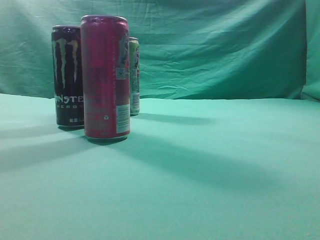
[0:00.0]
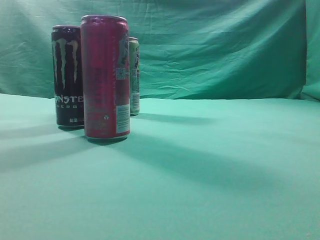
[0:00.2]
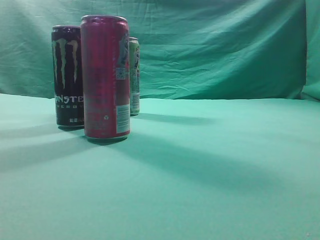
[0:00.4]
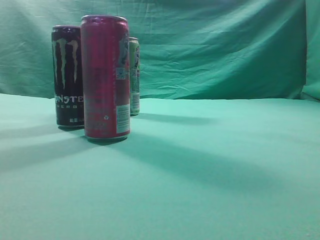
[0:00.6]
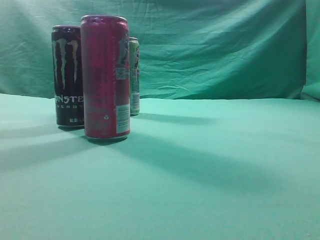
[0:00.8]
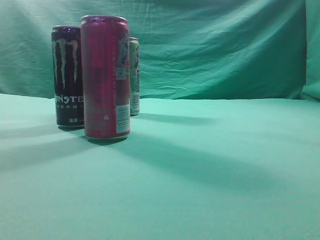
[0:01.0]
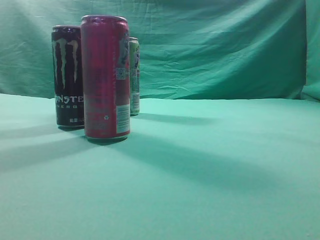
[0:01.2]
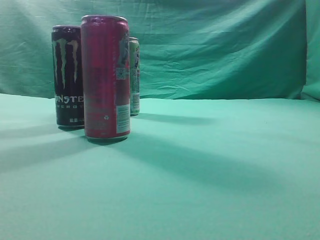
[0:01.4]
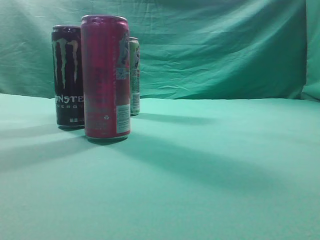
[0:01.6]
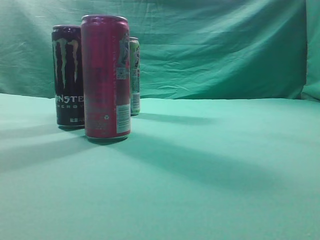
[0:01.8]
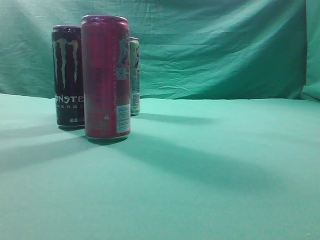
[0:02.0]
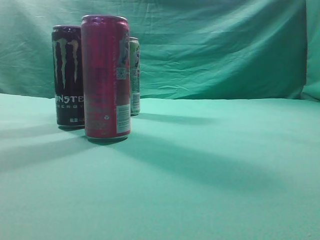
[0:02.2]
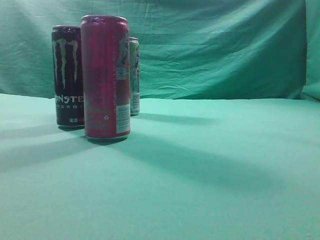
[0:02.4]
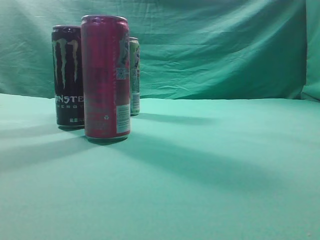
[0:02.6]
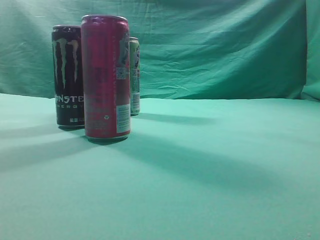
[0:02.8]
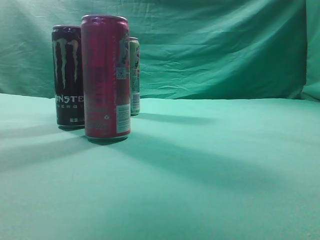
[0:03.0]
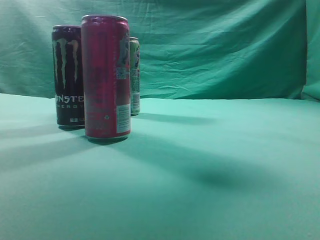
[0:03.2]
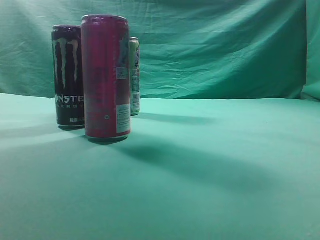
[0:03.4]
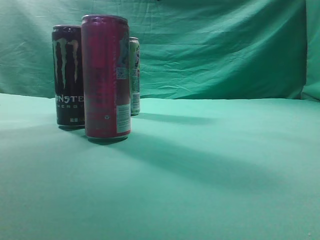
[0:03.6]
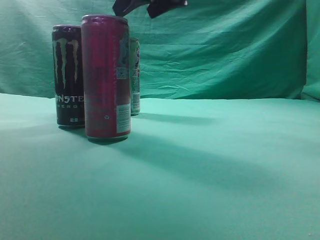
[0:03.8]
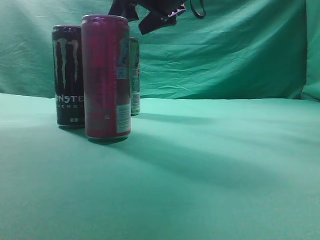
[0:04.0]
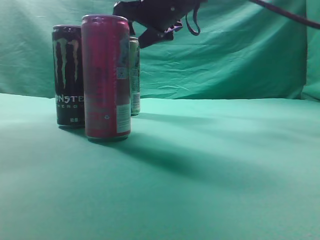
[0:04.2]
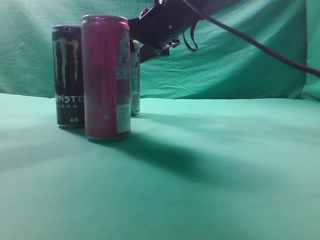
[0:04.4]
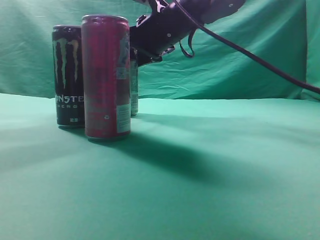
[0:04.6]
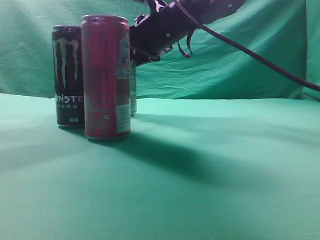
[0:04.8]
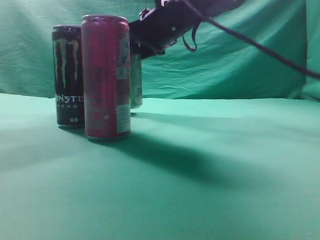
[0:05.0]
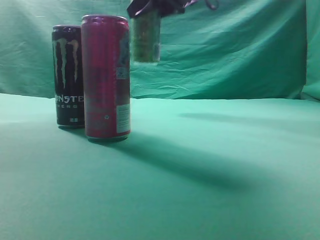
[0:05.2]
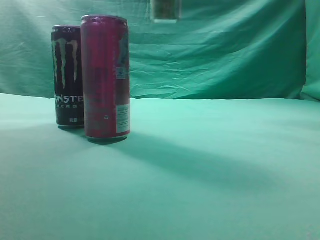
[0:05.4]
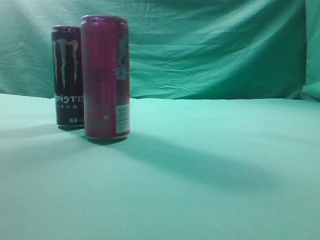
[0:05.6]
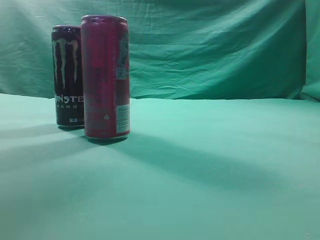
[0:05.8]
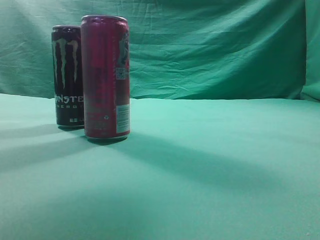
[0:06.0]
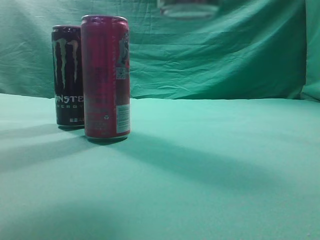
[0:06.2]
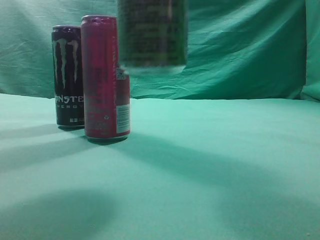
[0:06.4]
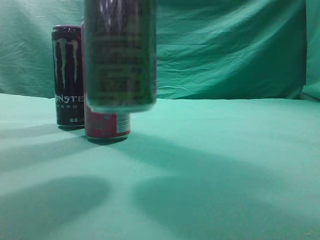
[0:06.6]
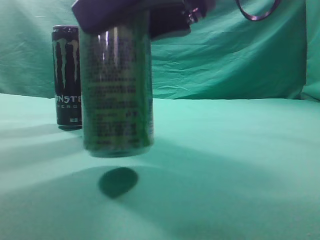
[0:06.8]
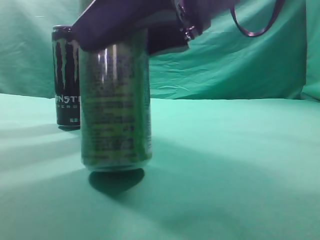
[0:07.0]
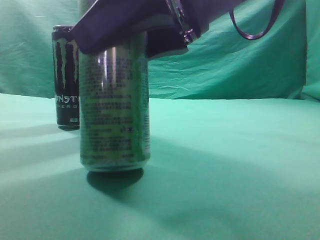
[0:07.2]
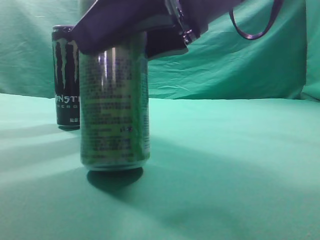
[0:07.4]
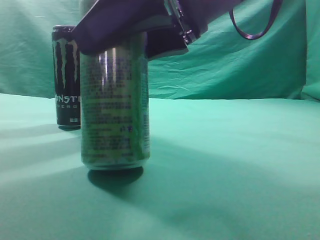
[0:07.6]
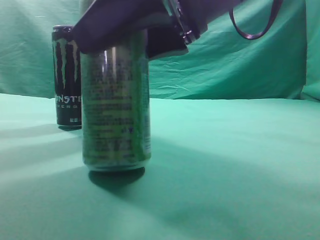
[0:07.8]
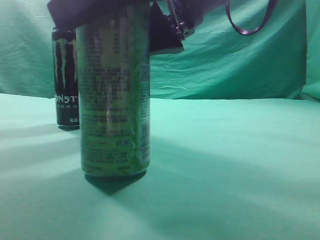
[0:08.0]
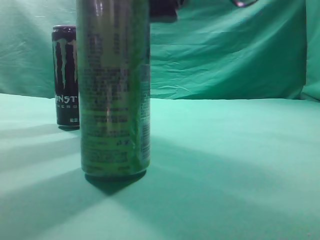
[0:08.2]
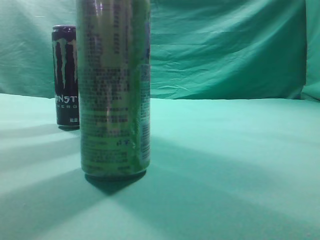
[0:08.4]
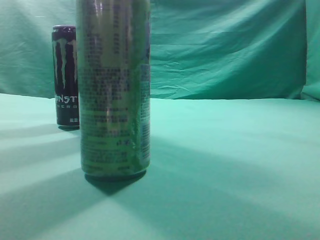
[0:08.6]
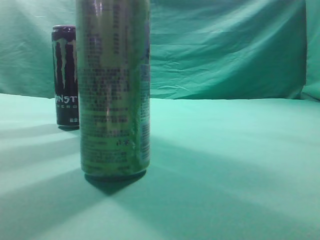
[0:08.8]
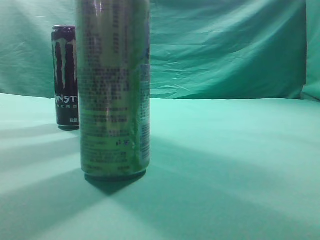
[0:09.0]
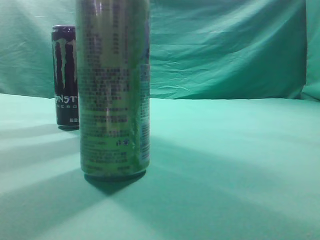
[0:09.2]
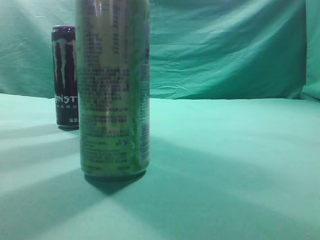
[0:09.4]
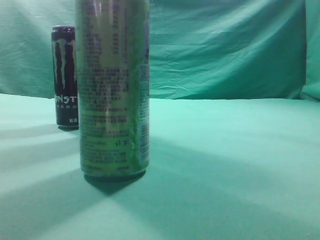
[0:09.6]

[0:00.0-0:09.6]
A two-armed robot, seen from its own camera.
Task of the whole recording: move one drink among three beverages.
Step, 0:00.0 to 0:05.0: Grasp the beverage bottle placed at the back of the desk.
Step, 0:05.2 to 0:08.6: Place the beverage bottle to the front of the table.
0:01.6 to 0:03.2: The right gripper goes approximately 30 cm forward, to the left and upward.
0:03.2 to 0:04.8: The right gripper is displaced to the left, downward and forward by roughly 20 cm, and opens up.
0:04.8 to 0:06.4: The right gripper heads backward, covering approximately 25 cm.
0:06.4 to 0:08.0: The right gripper travels downward by approximately 5 cm.
0:08.0 to 0:09.6: The right gripper moves to the right, upward and backward, approximately 30 cm, and closes up.
